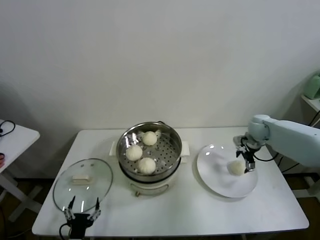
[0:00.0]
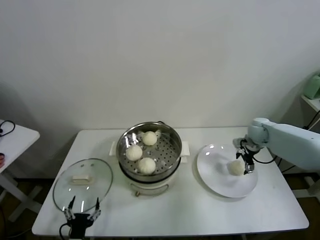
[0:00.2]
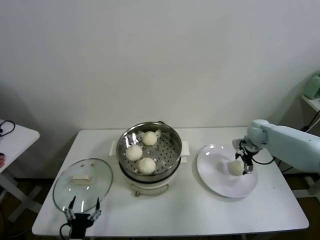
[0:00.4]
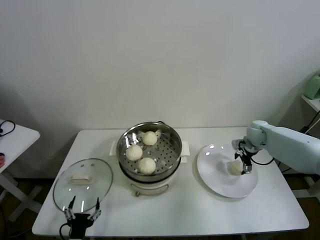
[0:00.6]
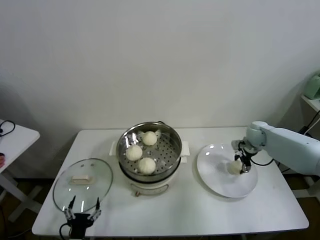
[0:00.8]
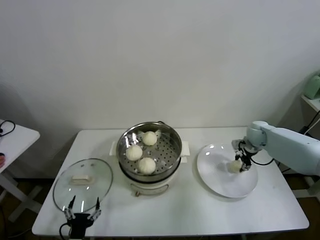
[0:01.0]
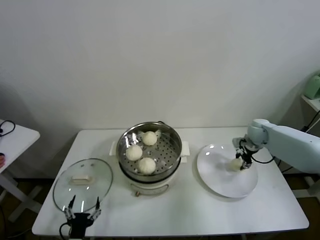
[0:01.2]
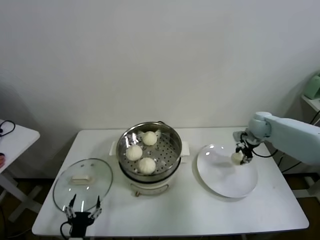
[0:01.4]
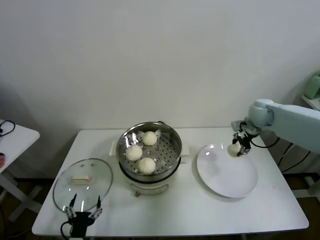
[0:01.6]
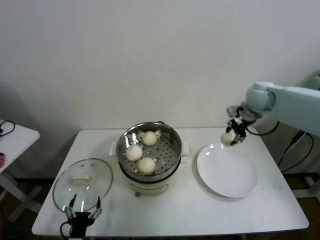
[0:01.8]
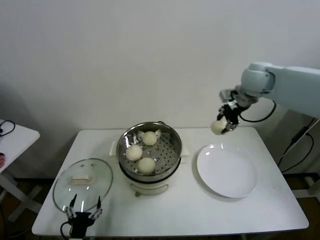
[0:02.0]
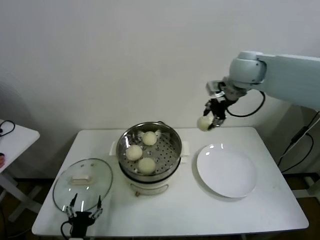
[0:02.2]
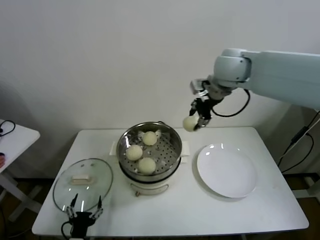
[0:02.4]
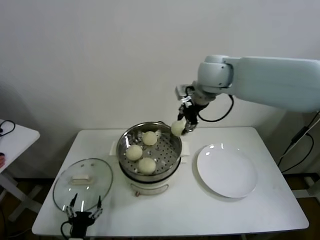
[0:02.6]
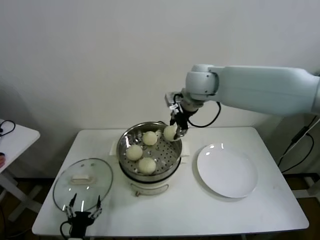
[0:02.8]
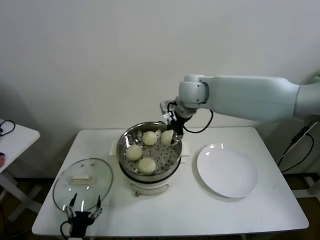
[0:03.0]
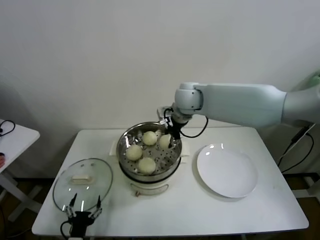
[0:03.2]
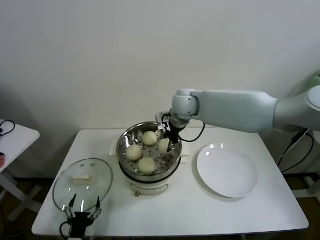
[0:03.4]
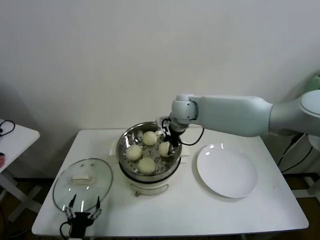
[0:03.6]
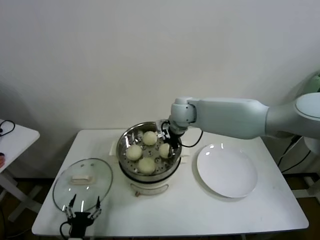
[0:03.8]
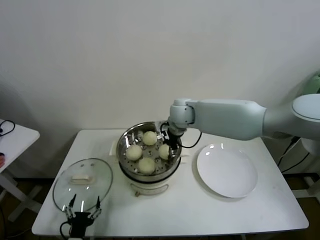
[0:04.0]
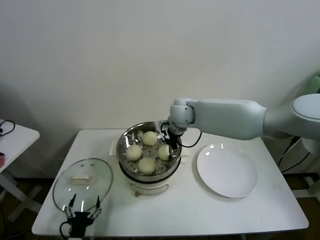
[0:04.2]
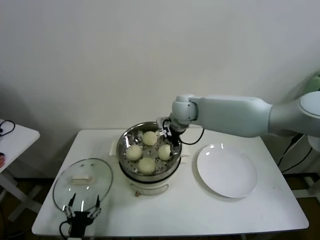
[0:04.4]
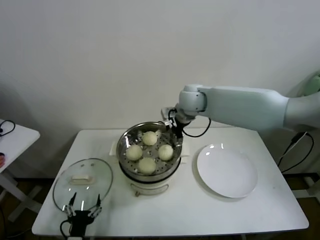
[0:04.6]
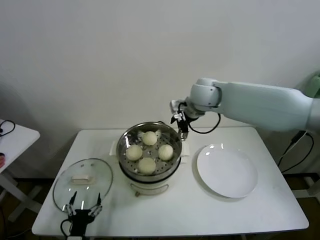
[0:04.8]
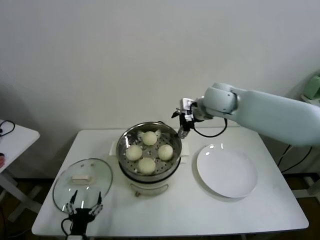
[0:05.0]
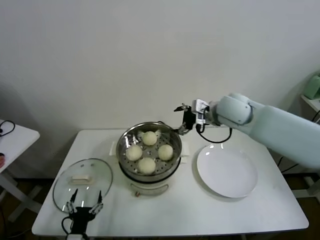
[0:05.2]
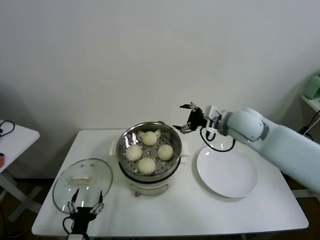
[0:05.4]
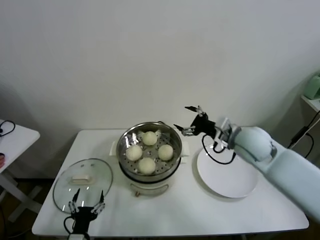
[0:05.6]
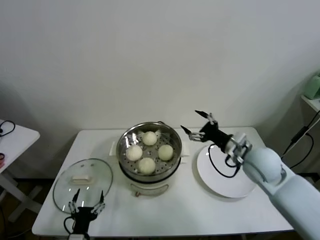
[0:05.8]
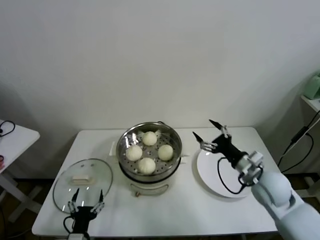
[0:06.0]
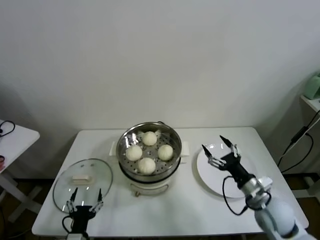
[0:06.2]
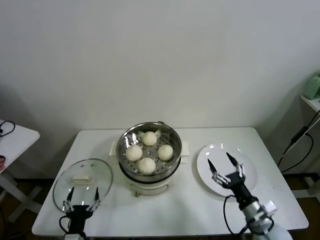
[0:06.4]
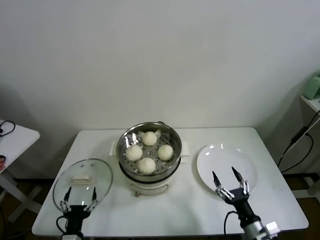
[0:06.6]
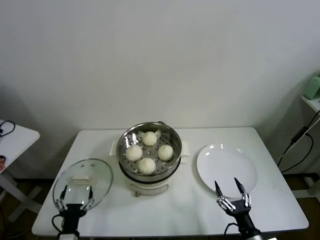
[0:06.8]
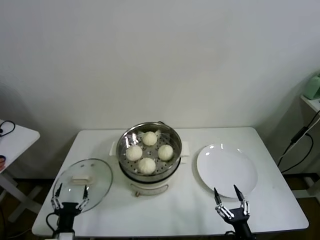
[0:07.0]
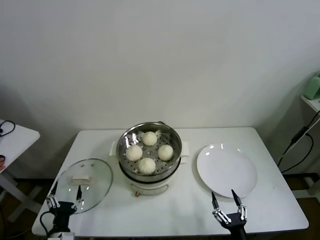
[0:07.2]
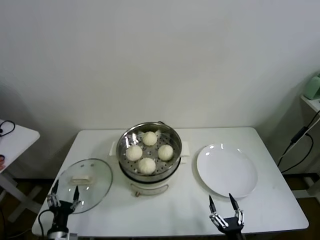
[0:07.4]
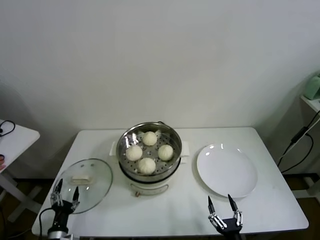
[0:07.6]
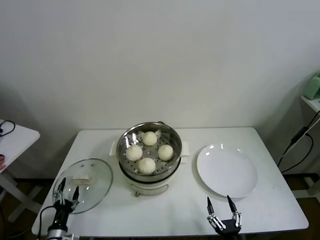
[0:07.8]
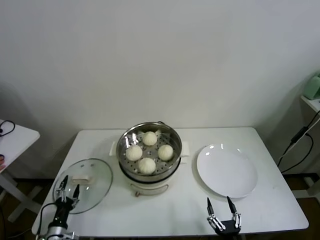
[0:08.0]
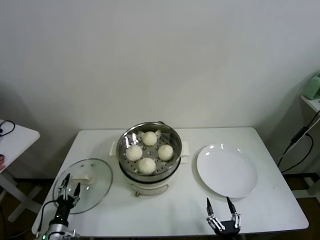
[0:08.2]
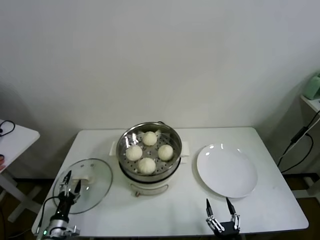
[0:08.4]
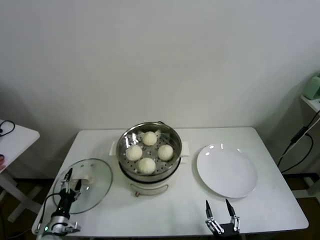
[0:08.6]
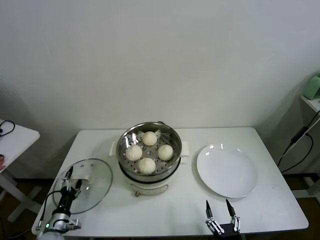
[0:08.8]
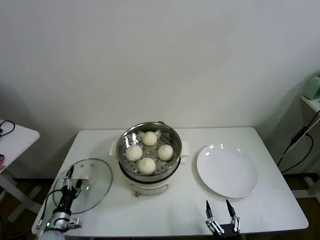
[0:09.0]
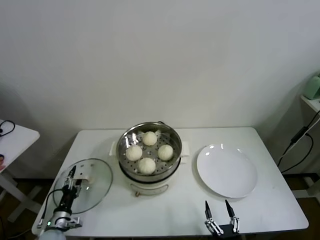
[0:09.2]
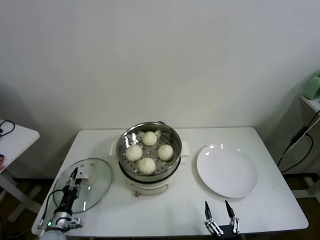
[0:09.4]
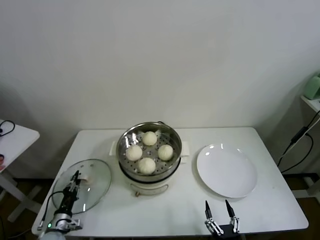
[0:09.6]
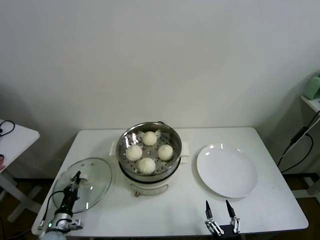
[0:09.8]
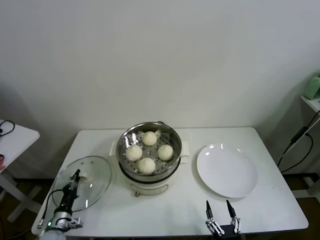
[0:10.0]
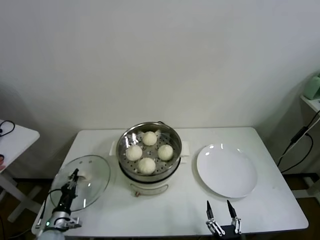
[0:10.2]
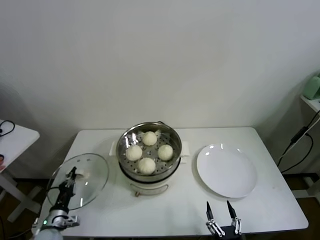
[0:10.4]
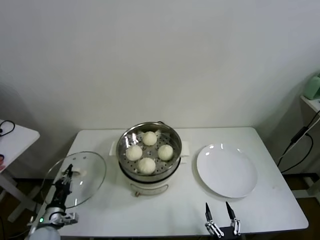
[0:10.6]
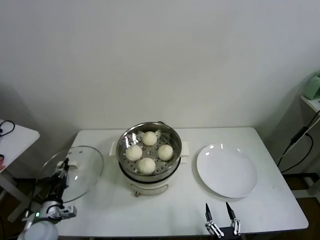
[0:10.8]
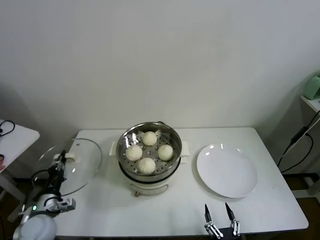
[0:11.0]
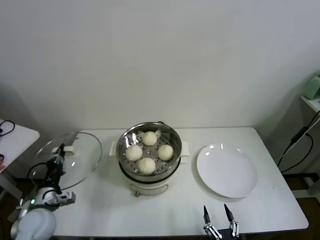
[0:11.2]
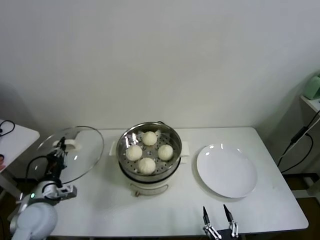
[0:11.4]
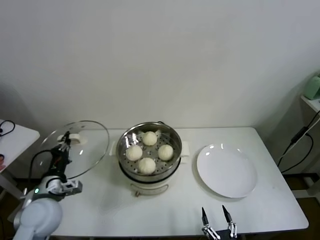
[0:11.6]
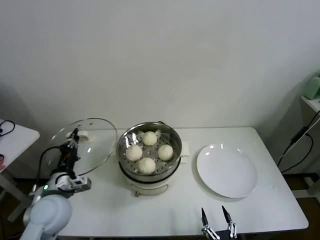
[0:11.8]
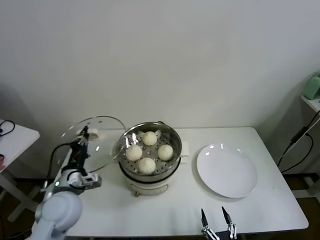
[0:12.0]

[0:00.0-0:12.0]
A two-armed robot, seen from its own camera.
Task of the whole recording: take steamed baozi put them in steamer.
Step, 0:01.2 to 0:04.2: Place the baozi on the steamer with right gripper.
Step, 0:04.4 to 0:09.8: Grasp the pot lid with left gripper.
0:00.0 to 0:01.6: The right gripper is displaced upward by roughly 10 cm, and closes up.
0:01.6 to 0:03.0: The right gripper travels to the left and upward by some 30 cm.
0:03.0 to 0:04.4: The right gripper heads downward, covering approximately 10 cm, and opens its fingers.
0:04.4 to 0:06.0: The right gripper heads to the right, backward and downward, covering some 35 cm.
0:06.0 to 0:07.6: The left gripper is displaced to the left and downward by approximately 10 cm; the right gripper heads backward and downward, covering approximately 30 cm.
0:07.6 to 0:09.0: The left gripper shifts roughly 5 cm forward.
0:09.0 to 0:10.4: The left gripper closes.
0:10.4 to 0:12.0: The left gripper moves upward and to the right, about 25 cm.

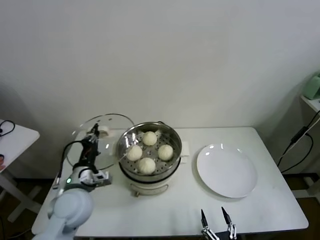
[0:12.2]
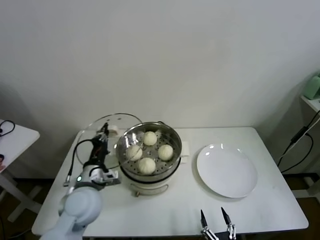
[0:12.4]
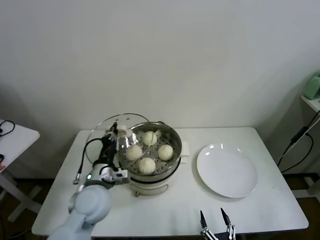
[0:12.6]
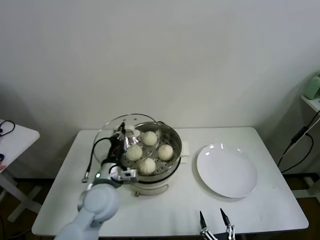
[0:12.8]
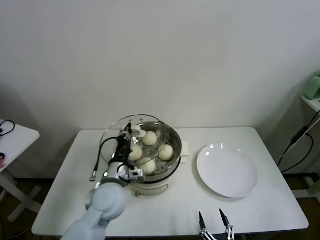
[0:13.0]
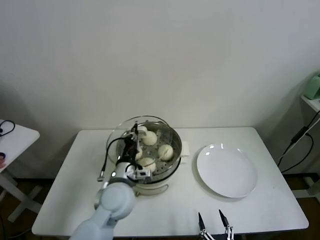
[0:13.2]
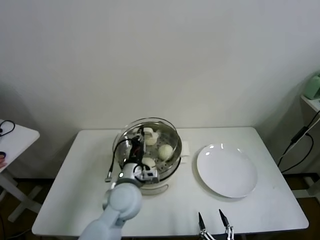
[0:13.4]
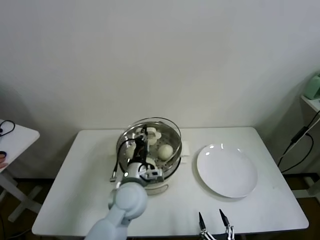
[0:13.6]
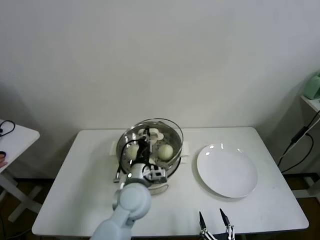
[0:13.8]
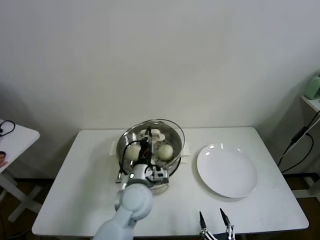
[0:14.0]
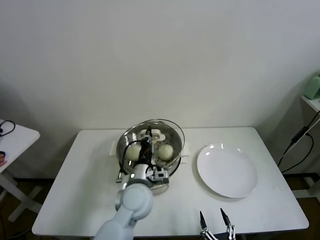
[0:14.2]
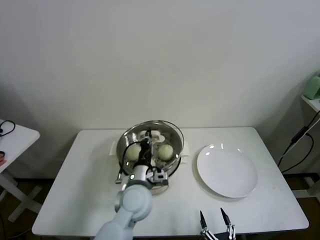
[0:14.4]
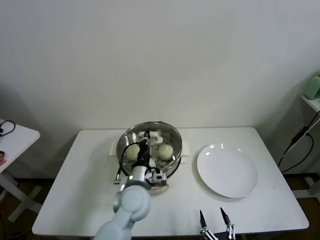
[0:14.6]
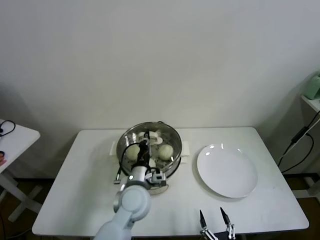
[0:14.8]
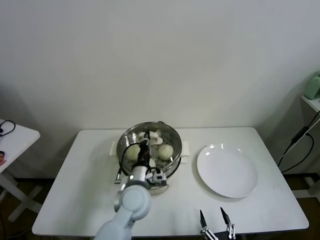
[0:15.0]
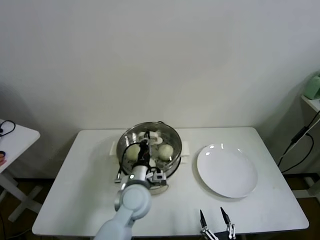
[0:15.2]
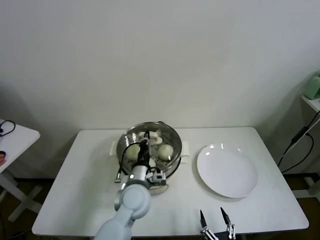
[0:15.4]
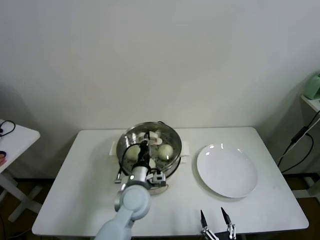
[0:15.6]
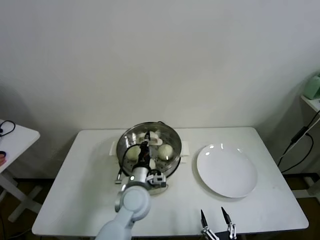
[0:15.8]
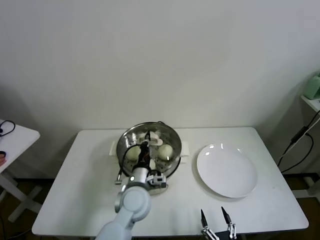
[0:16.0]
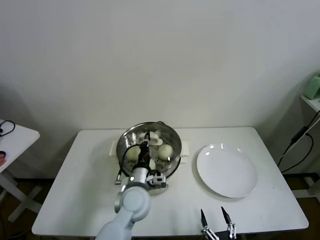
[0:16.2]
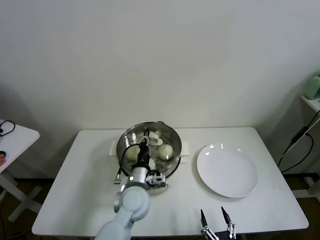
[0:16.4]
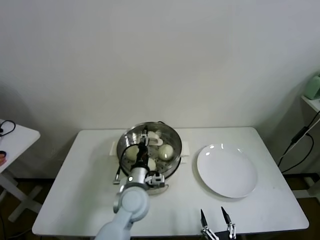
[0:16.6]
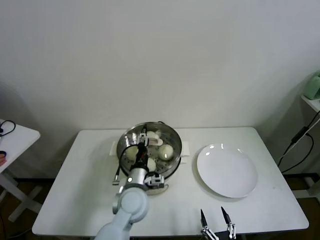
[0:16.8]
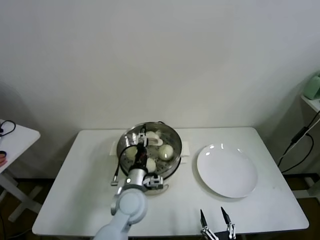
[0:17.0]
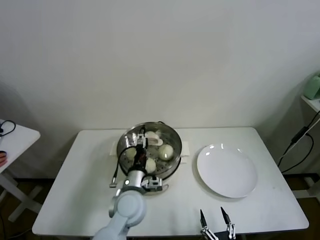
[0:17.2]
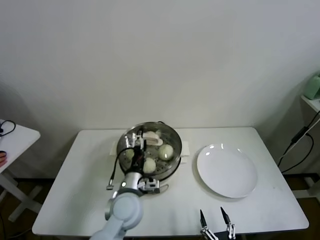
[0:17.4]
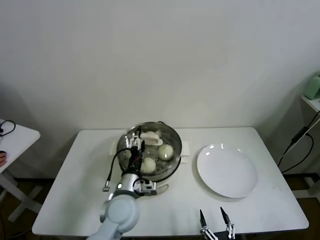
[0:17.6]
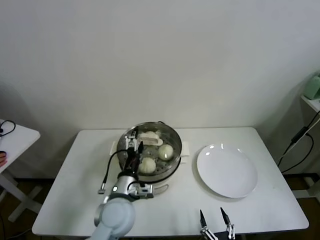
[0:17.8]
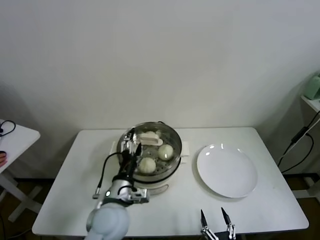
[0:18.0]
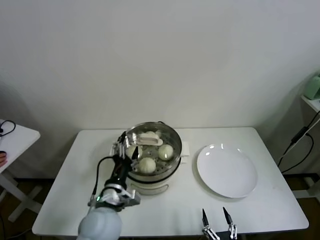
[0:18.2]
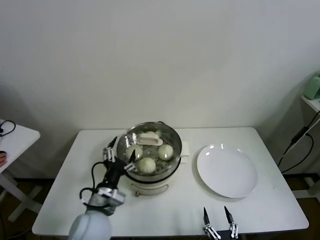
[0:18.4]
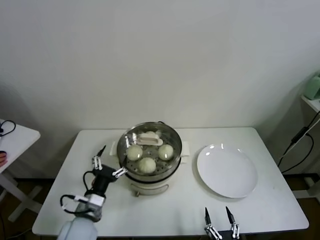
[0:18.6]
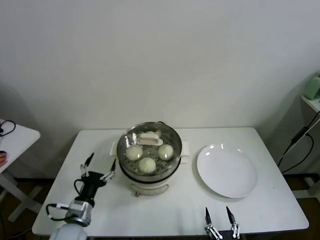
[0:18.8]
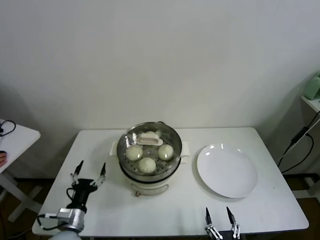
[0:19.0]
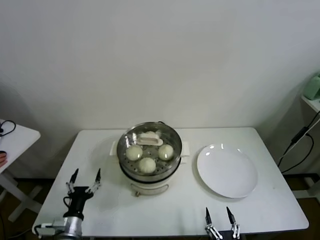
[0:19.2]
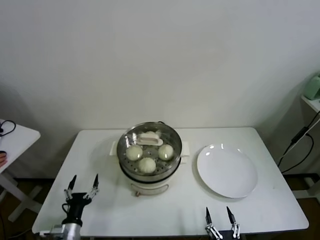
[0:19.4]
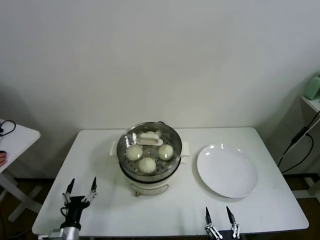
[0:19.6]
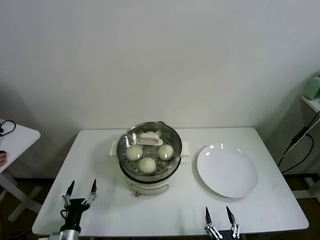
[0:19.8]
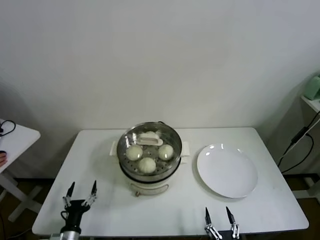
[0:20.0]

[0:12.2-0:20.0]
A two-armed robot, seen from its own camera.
Task of the whole recording: take steamed baozi put them in steamer.
Step, 0:12.2 to 0:17.6: Place the pot lid on the steamer with left gripper.
0:12.2 to 0:13.8: The left gripper shifts roughly 15 cm to the right.
0:13.8 to 0:15.4: The grippers make only small movements.
0:15.4 to 0:16.8: The left gripper opens its fingers.
0:16.8 to 0:18.4: The left gripper travels to the left and backward by roughly 10 cm.
0:18.4 to 0:20.0: The left gripper shifts about 25 cm downward, to the left and backward.
